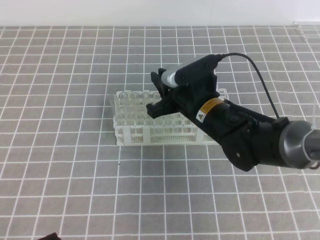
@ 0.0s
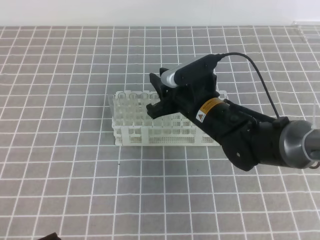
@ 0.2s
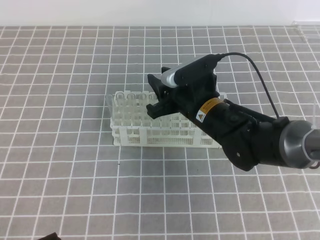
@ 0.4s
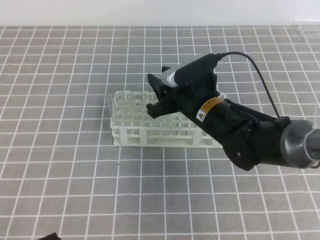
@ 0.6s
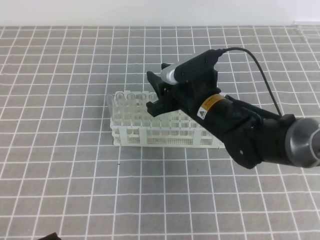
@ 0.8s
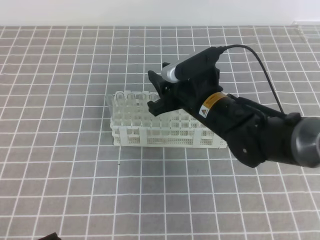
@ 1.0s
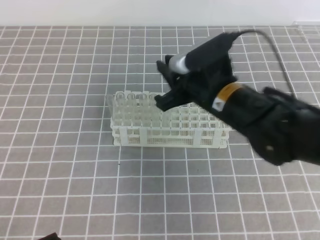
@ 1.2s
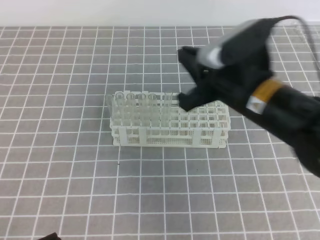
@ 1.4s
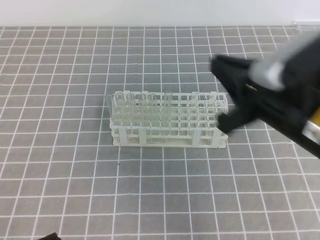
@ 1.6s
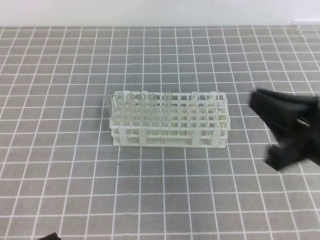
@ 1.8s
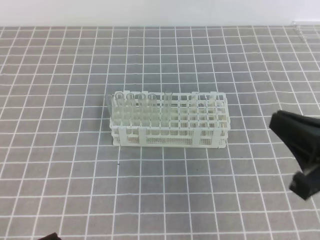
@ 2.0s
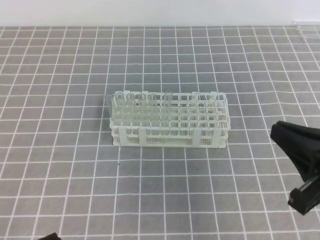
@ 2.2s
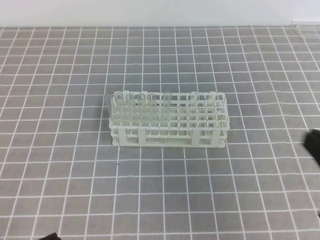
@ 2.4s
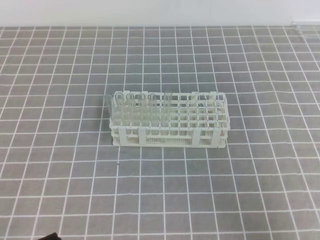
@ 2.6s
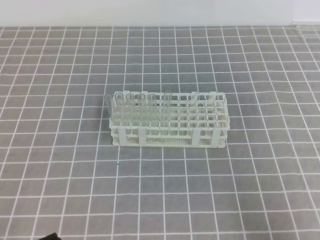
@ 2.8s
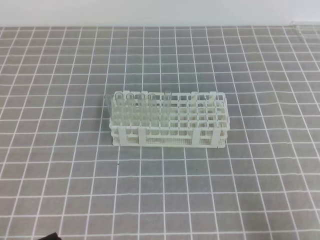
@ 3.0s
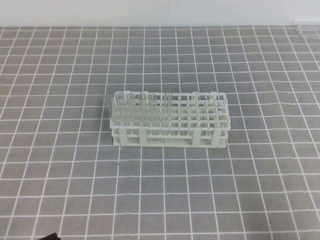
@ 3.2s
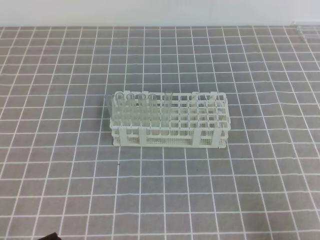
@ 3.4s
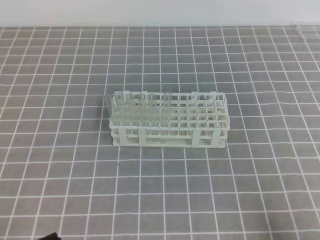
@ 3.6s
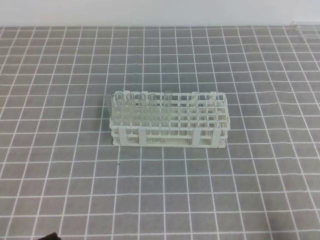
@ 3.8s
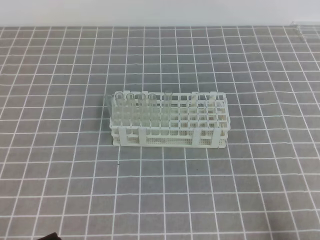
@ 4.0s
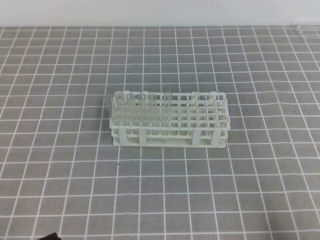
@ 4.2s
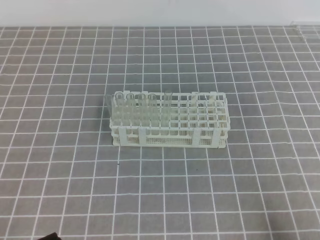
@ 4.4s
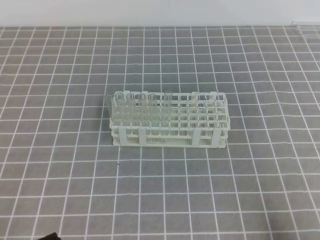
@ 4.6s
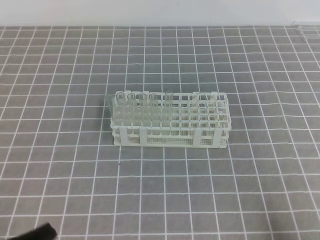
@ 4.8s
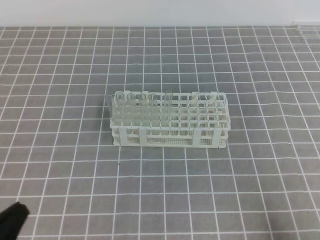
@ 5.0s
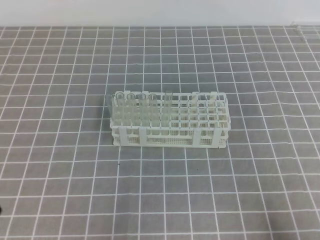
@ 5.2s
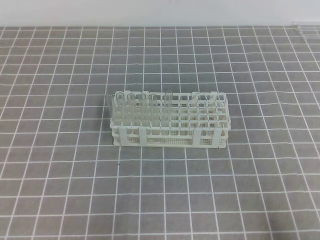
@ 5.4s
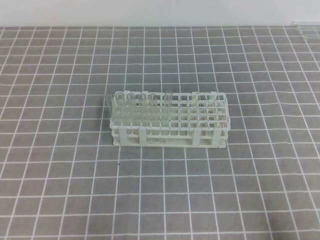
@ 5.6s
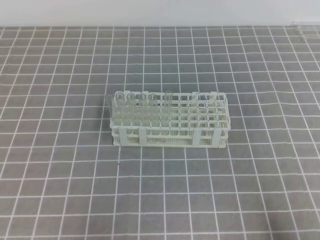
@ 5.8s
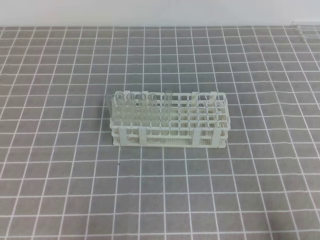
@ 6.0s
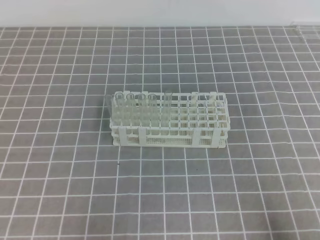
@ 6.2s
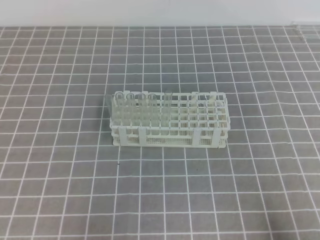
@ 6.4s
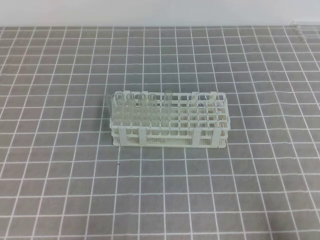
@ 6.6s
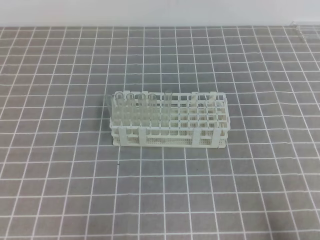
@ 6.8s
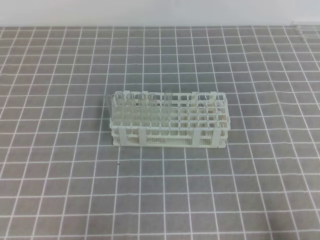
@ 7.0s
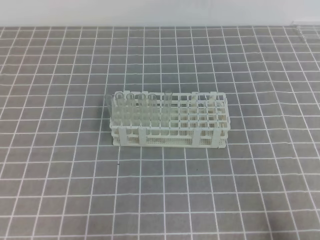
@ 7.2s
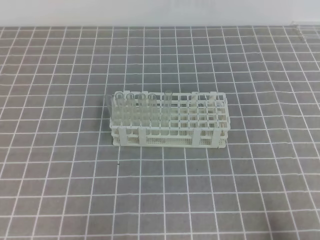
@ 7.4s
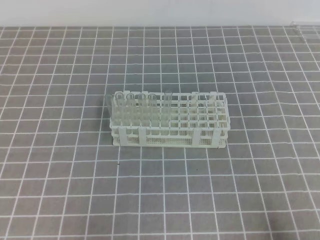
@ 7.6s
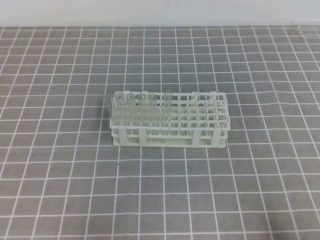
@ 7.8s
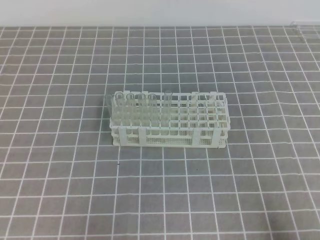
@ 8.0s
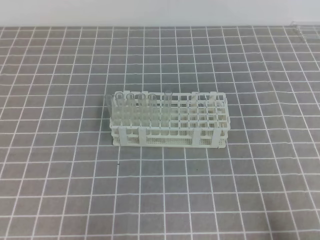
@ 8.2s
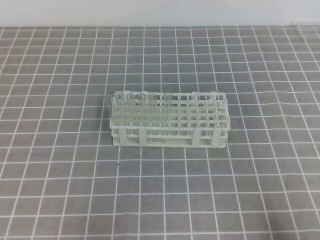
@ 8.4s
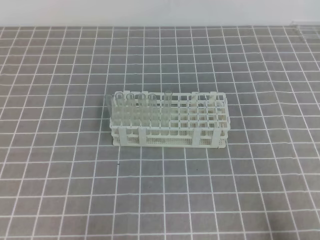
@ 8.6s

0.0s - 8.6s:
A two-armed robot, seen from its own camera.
0.0s - 1.4s: The right gripper moves upward and backward, about 10 cm, and opens, then closes once more.
1.4s - 2.8s: The right gripper travels backward, to the right and downward by about 30 cm.
5.8s - 8.6s: Neither gripper changes place.

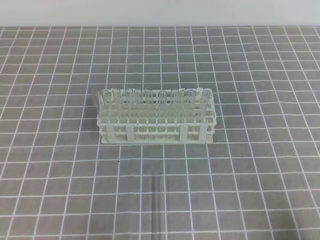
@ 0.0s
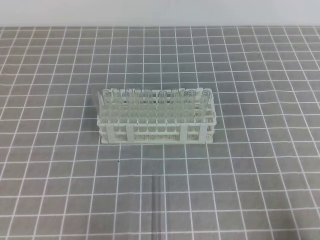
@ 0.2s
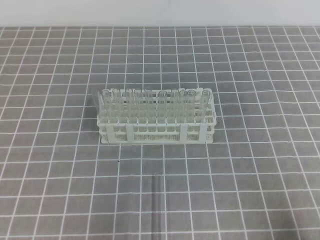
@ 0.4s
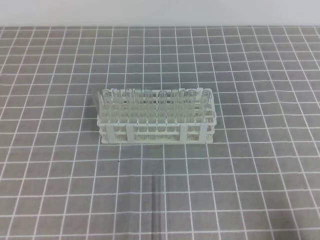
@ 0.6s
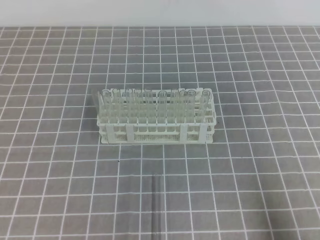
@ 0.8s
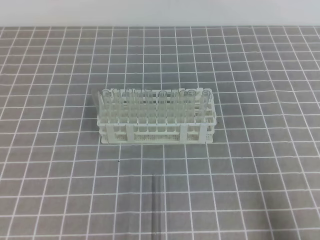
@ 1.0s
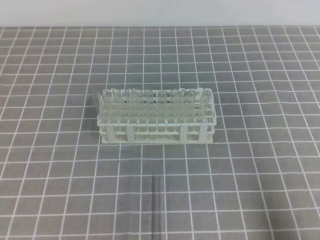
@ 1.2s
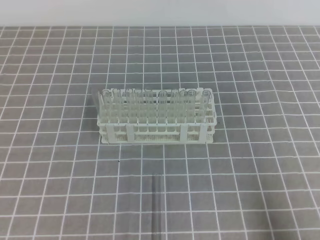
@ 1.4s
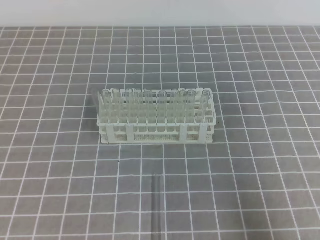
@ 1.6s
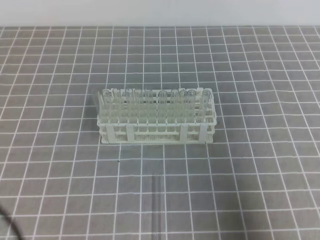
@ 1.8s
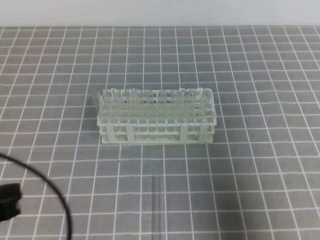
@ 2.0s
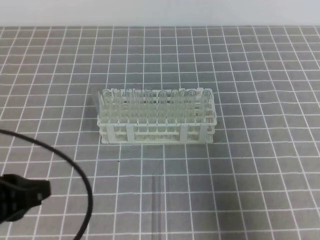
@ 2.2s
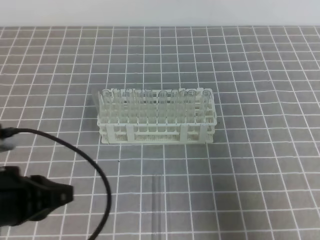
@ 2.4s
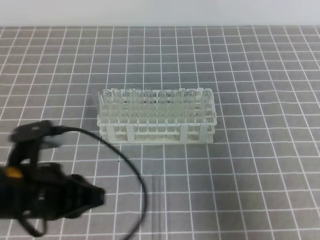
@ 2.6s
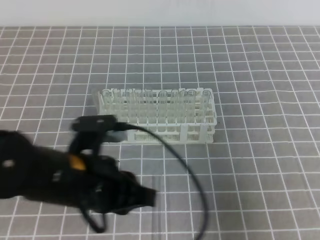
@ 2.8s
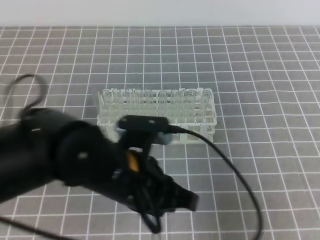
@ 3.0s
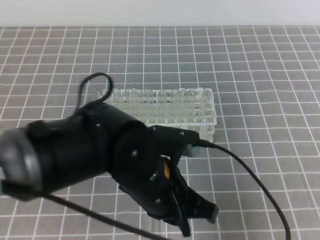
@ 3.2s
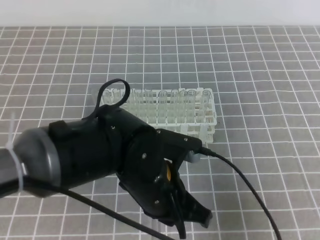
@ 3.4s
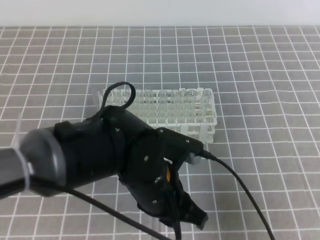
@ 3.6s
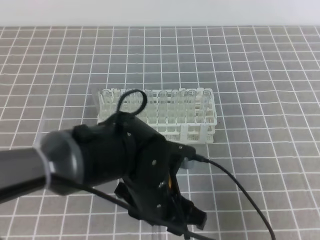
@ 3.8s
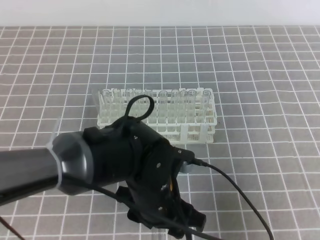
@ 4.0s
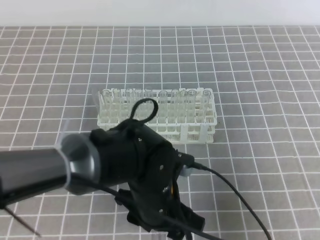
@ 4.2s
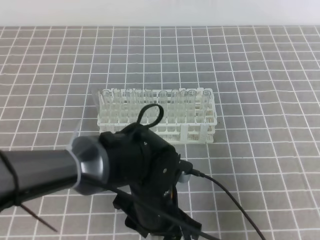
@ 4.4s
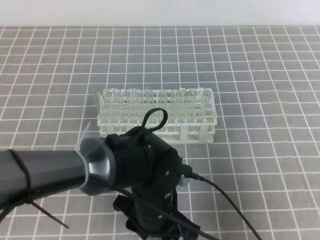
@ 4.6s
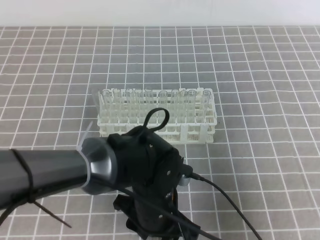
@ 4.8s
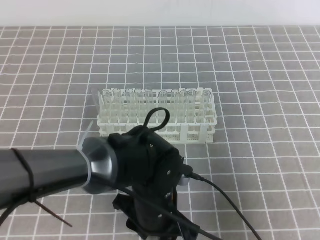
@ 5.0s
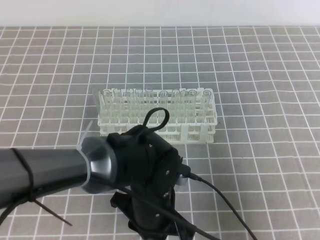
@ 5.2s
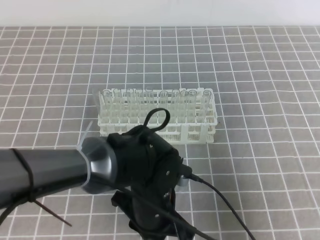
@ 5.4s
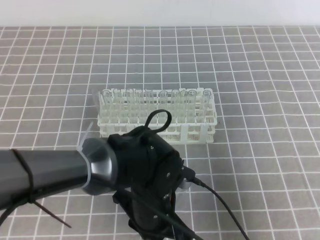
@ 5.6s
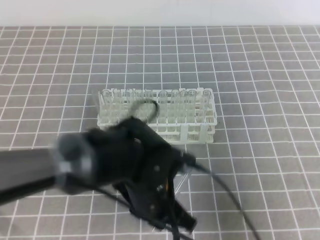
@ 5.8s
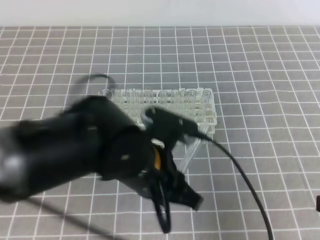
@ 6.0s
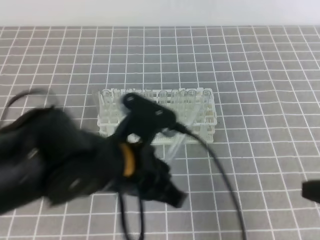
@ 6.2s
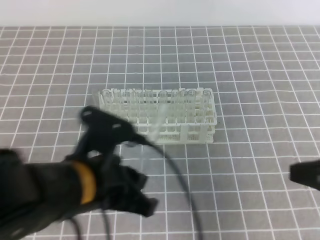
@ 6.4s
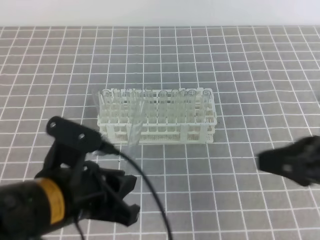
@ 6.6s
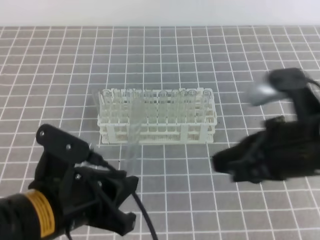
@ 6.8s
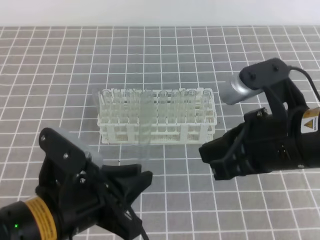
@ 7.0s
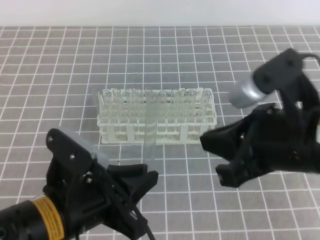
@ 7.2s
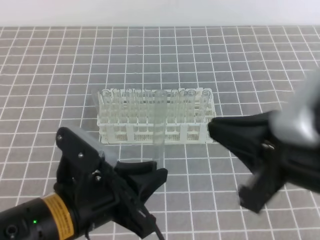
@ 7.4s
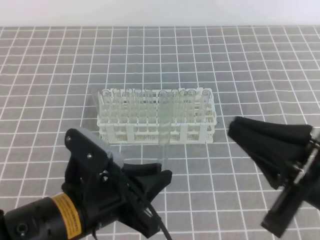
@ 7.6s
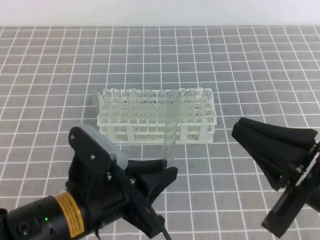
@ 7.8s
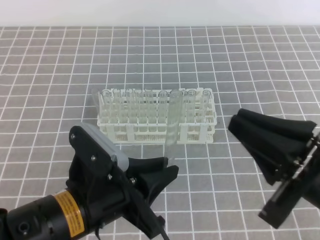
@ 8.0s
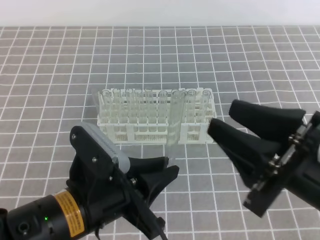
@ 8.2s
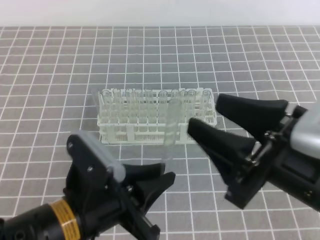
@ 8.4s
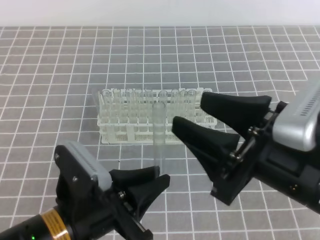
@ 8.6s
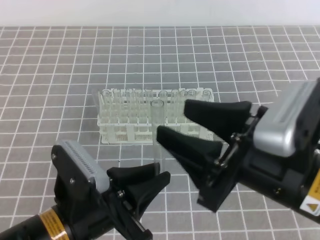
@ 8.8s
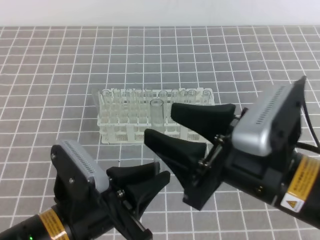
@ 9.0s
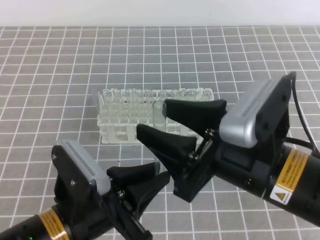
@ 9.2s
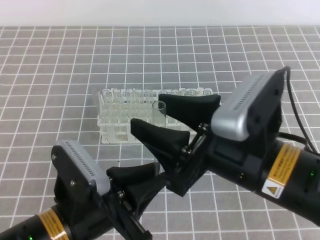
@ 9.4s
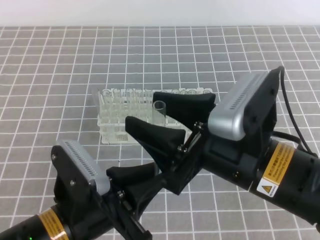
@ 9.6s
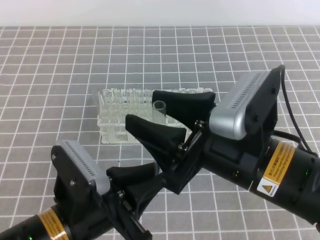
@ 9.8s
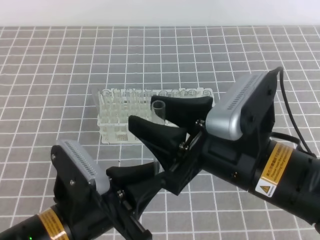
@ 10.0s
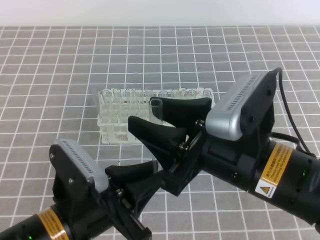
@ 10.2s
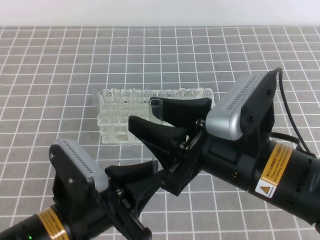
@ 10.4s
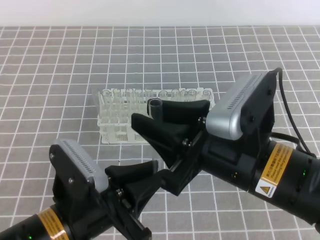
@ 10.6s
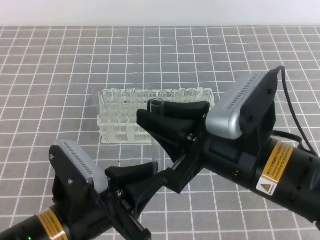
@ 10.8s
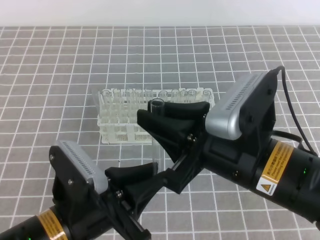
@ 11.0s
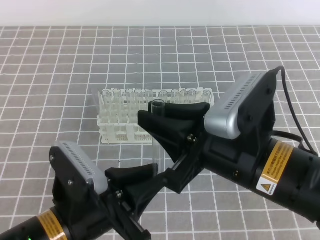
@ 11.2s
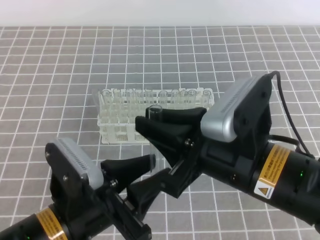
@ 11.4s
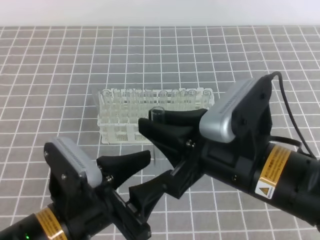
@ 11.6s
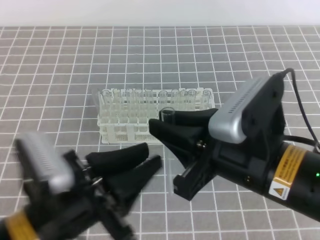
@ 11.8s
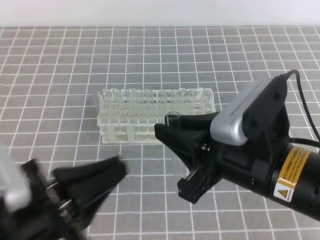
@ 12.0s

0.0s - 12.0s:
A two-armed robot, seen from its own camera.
0.0s - 1.6s: The right gripper travels upward by approximately 5 cm.
1.6s - 3.0s: The right gripper is displaced forward by approximately 5 cm; the left gripper shifts about 25 cm to the right and forward.
3.0s - 4.4s: The left gripper goes about 10 cm downward and to the right, and opens.
4.4s - 6.0s: The left gripper travels upward by about 5 cm, and closes its fingers.
6.0s - 7.6s: The left gripper goes roughly 10 cm to the left and backward, while the right gripper moves to the left and upward, about 10 cm.
7.6s - 9.0s: The right gripper goes some 5 cm to the left, and opens up.
9.0s - 10.4s: The grippers move only a little.
10.4s - 12.0s: The right gripper closes up; the left gripper shifts by roughly 5 cm, and opens and closes again.

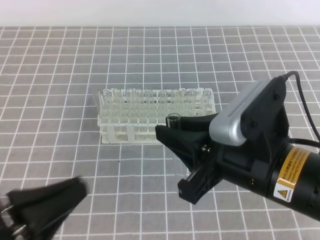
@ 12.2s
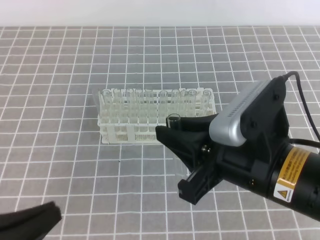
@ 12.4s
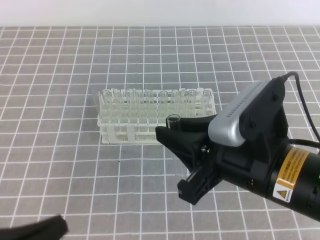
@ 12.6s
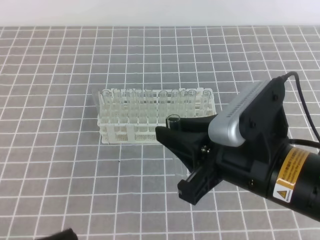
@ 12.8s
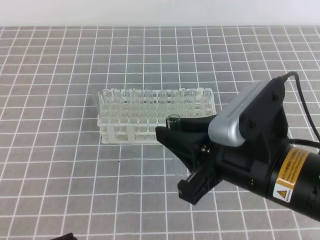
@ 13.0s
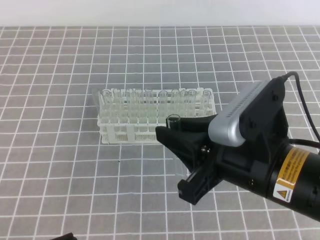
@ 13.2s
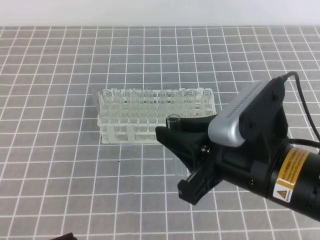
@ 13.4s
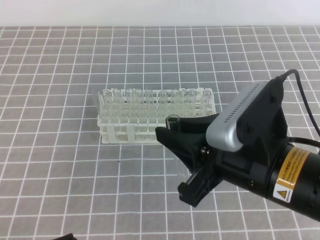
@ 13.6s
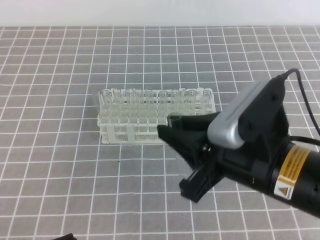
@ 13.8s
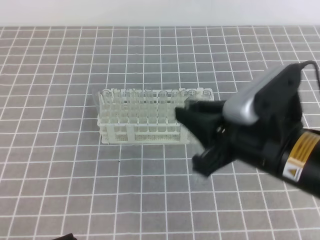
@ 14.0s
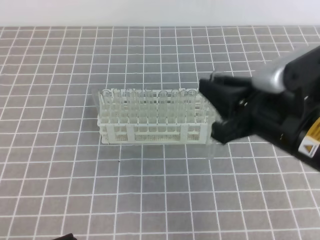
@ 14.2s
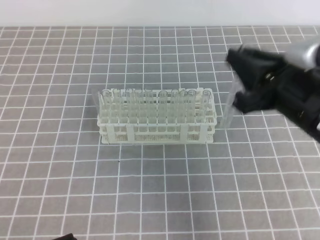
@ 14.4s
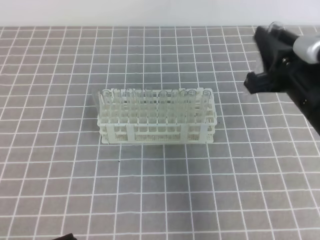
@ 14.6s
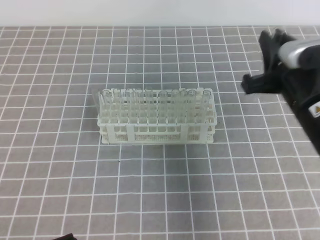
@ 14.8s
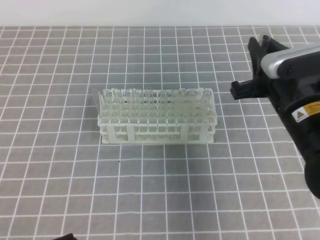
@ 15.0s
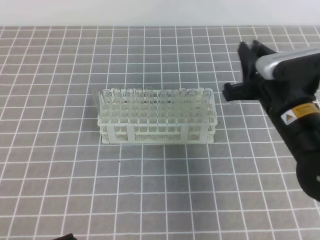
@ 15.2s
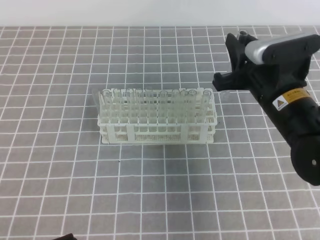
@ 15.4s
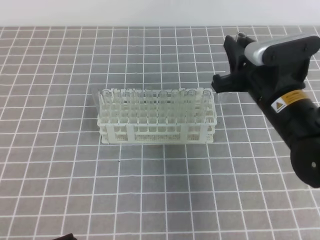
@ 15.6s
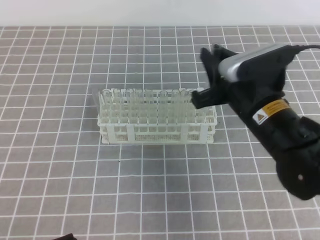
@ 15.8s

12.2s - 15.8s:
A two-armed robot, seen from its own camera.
12.2s - 14.0s: The left gripper shifts roughly 10 cm downward.
14.0s - 15.8s: The right gripper shifts some 10 cm forward.
